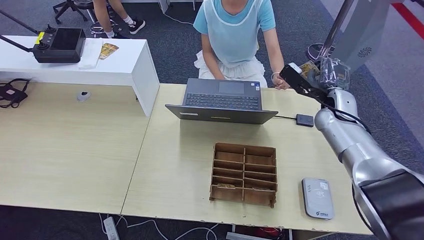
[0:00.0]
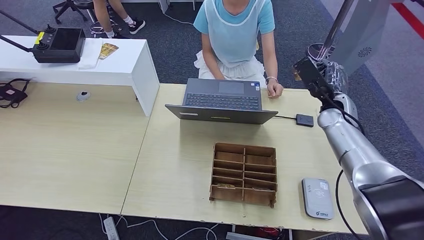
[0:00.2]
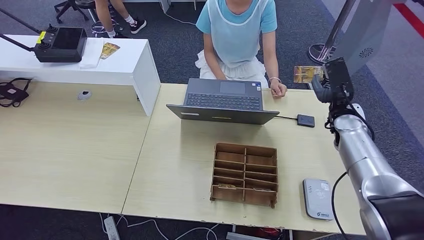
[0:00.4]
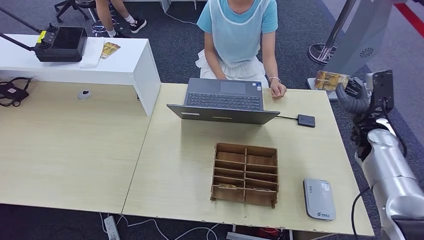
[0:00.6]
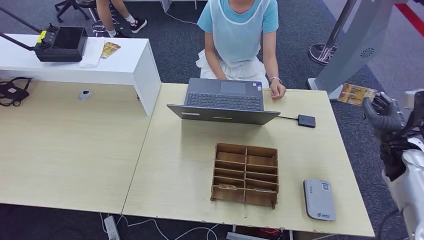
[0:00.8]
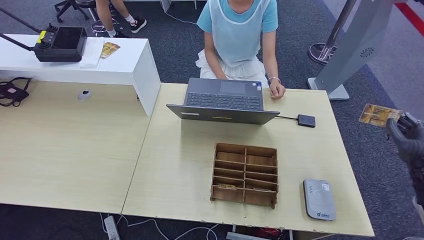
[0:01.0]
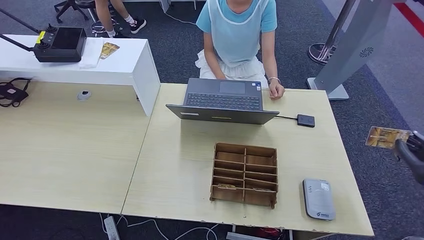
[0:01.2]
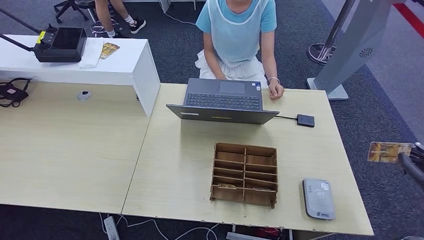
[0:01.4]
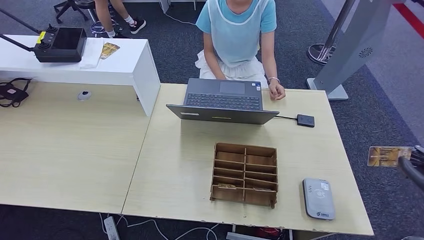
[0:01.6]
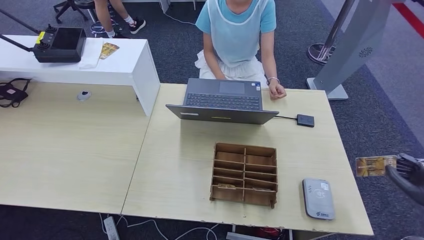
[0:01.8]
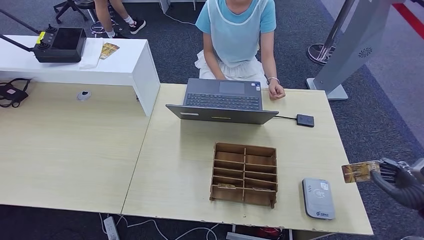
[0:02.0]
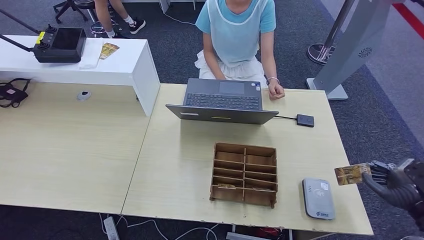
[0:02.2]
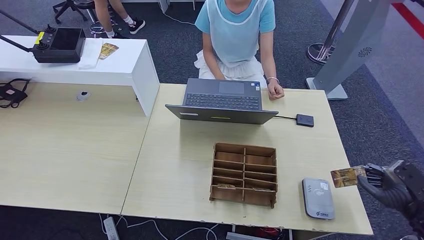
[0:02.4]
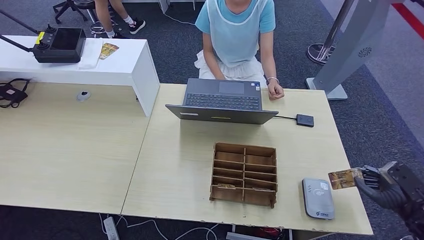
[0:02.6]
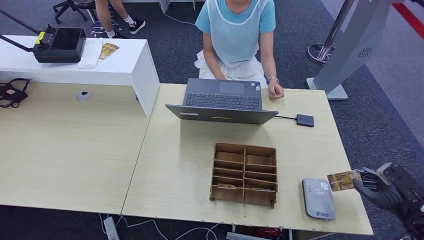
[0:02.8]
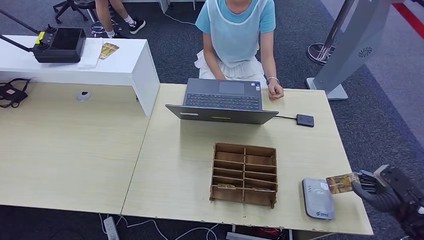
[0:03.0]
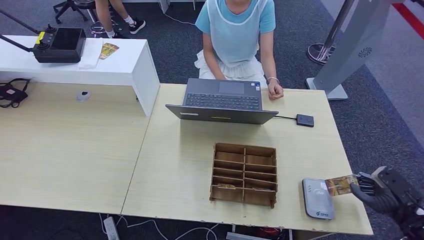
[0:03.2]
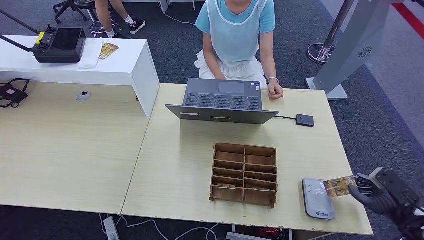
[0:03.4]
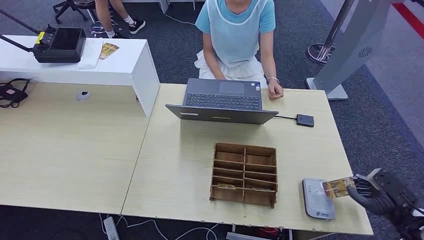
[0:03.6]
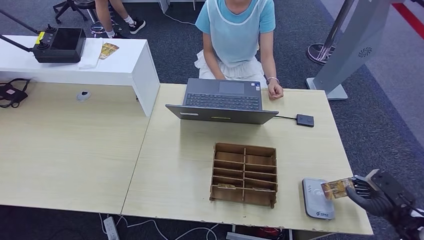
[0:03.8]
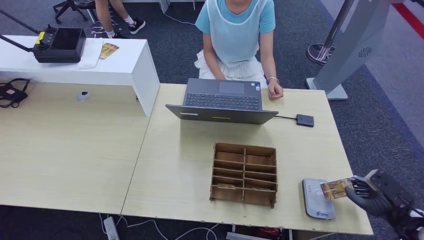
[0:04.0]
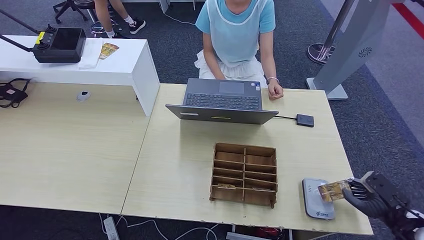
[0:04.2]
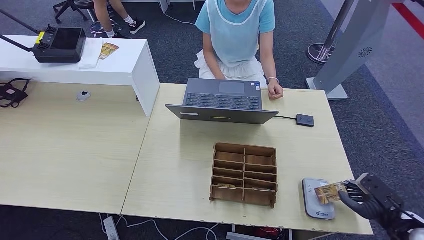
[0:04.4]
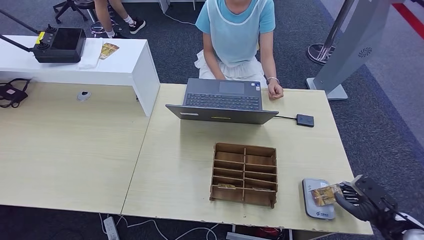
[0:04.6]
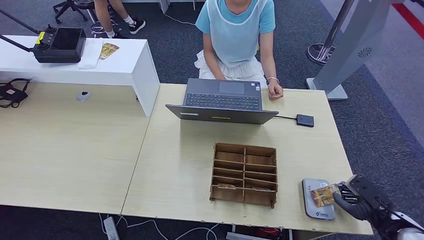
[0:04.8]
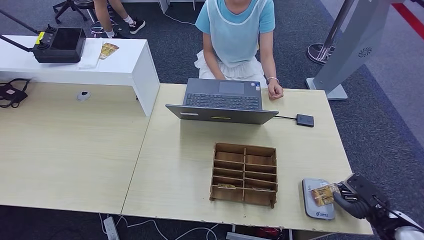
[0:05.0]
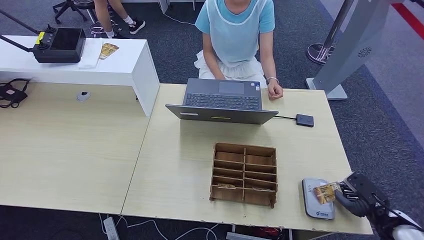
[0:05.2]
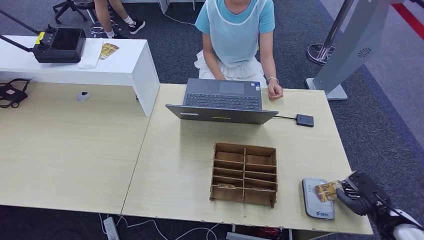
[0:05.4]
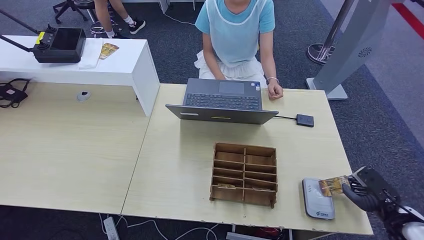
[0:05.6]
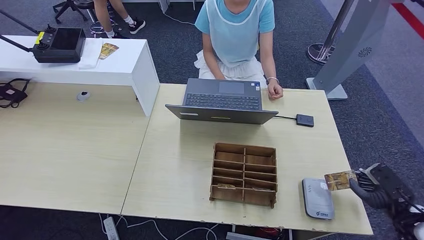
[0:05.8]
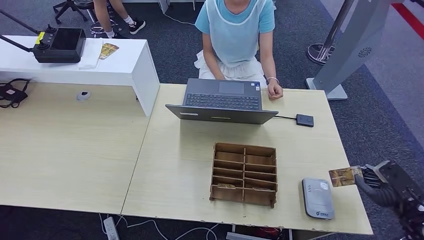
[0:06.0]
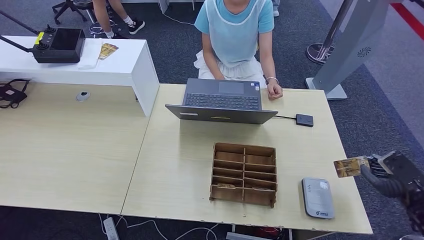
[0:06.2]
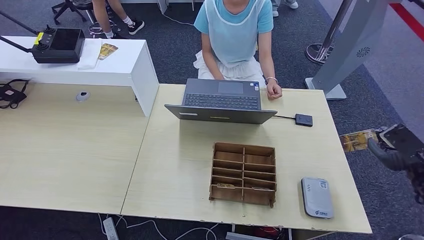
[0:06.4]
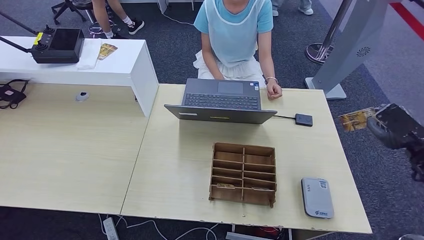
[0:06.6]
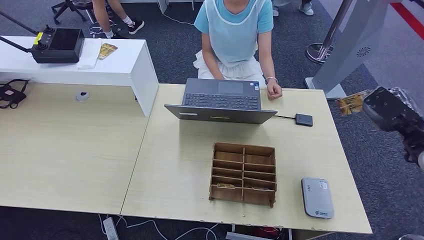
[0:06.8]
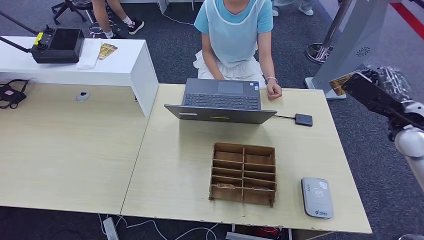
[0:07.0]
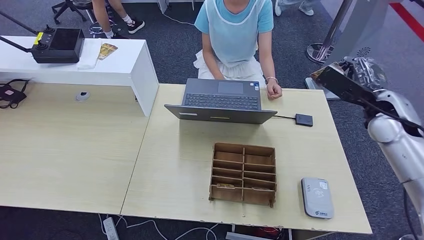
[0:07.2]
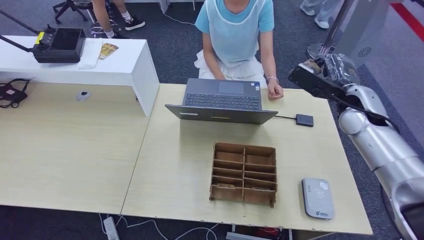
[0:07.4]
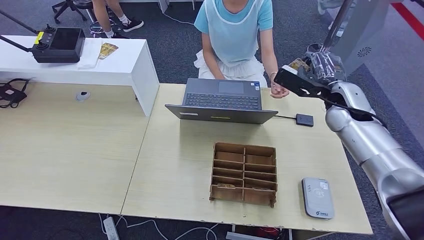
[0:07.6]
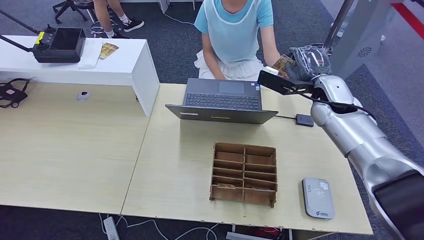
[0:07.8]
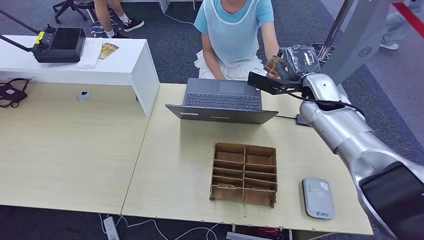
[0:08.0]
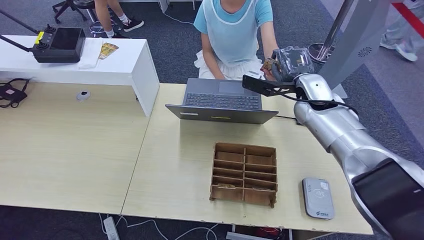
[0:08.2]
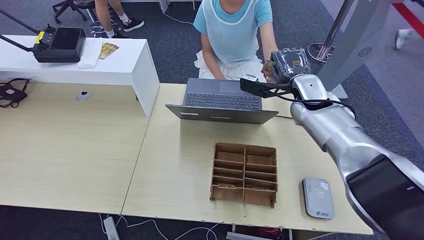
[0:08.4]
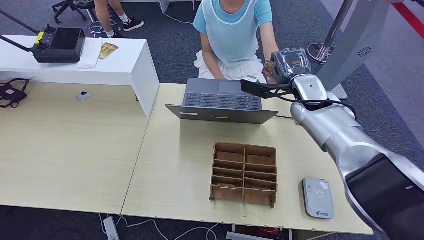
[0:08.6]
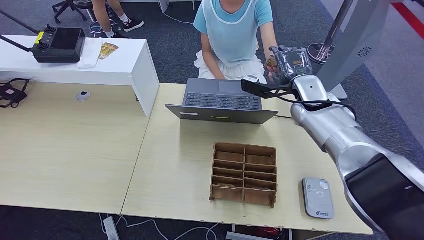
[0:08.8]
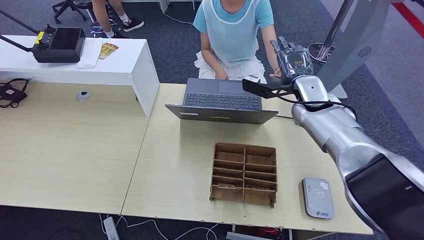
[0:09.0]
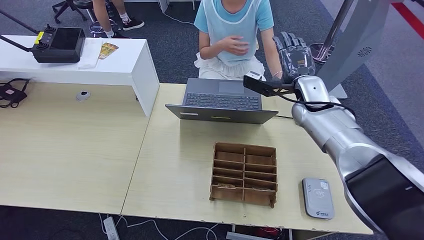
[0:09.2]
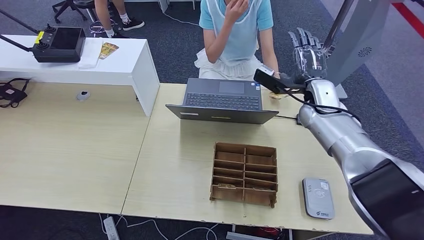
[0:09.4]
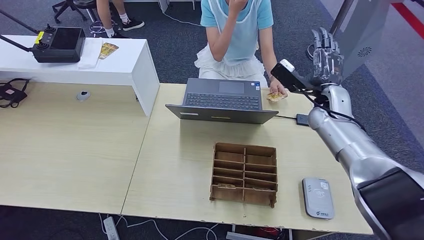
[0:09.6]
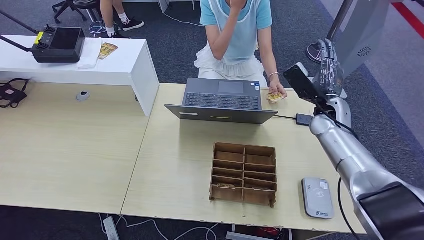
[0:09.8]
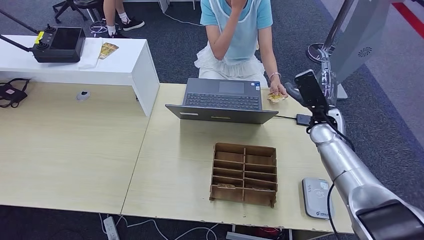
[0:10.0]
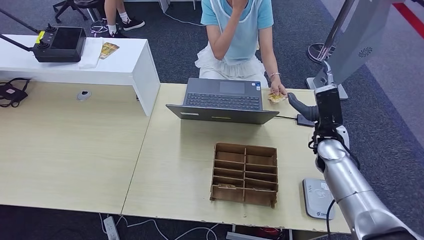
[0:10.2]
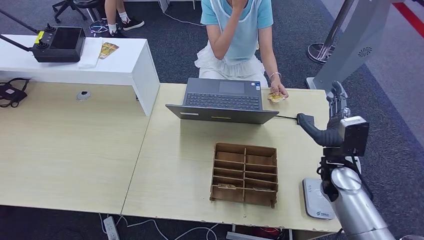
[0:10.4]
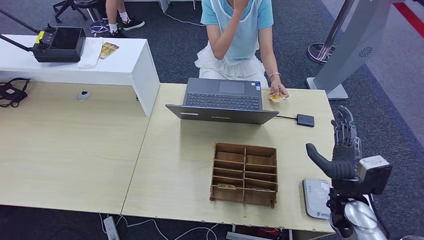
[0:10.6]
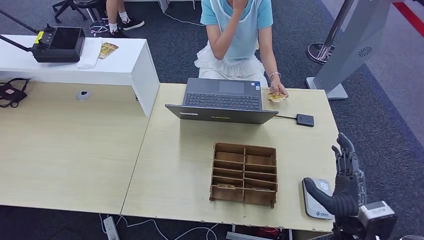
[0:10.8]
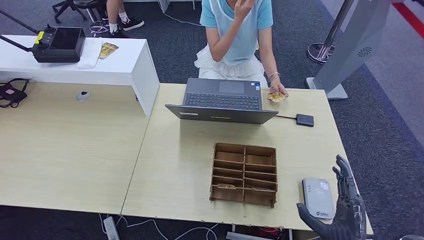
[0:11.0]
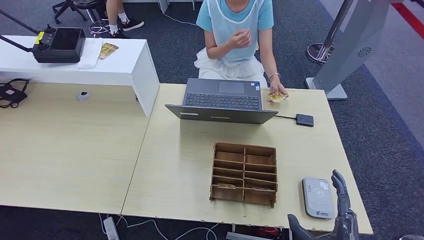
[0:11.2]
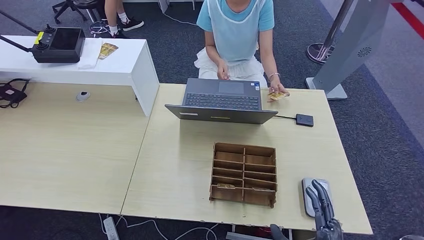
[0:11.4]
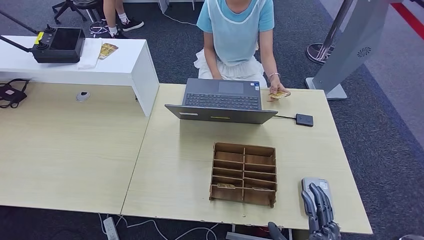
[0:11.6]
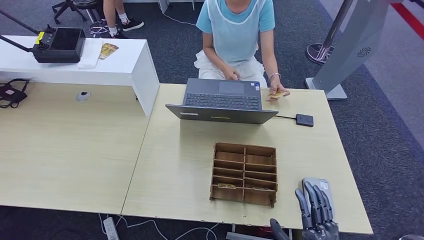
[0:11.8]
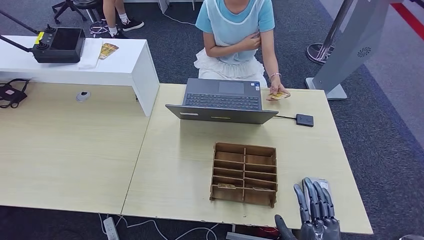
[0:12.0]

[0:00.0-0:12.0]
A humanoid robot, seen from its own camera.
Step, 0:01.0 to 0:06.4: Place the ID card on the card reader.
Step, 0:06.6 to 0:09.8: Hand the ID card to the person.
0:00.0 to 0:01.6: The right hand moves backward and to the right, about 35 cm.
0:01.6 to 0:03.0: The right hand shifts roughly 5 cm downward.
0:03.0 to 0:06.0: The hands stay close to where they were, moving slightly.
0:06.0 to 0:07.6: The right hand goes roughly 35 cm forward, to the left and upward.
0:07.6 to 0:09.0: The right hand heads to the left, covering roughly 10 cm.
0:09.0 to 0:10.4: The right hand travels backward, downward and to the right by some 20 cm.
0:10.4 to 0:12.0: The right hand moves backward, roughly 25 cm.

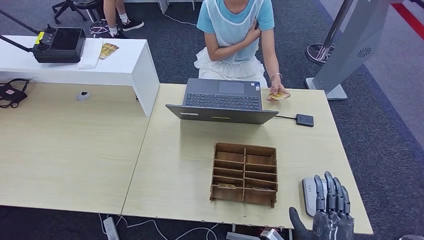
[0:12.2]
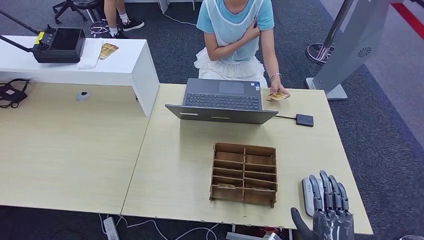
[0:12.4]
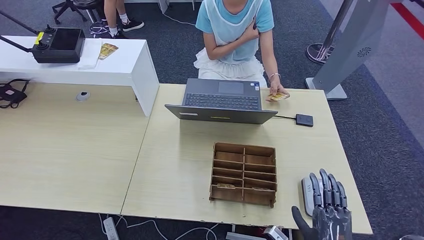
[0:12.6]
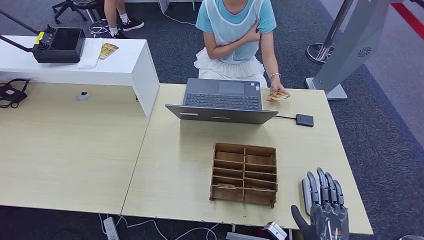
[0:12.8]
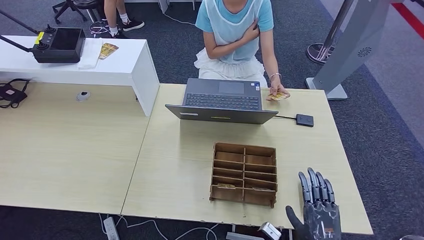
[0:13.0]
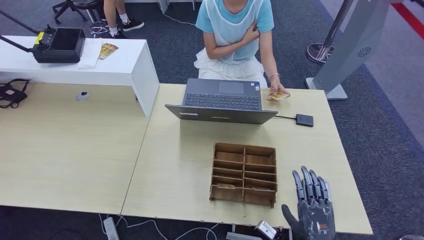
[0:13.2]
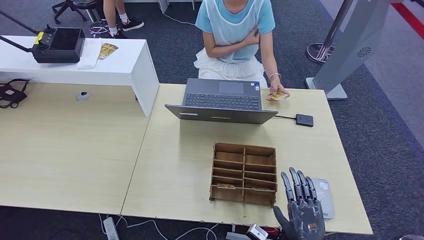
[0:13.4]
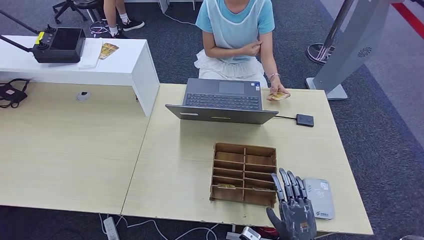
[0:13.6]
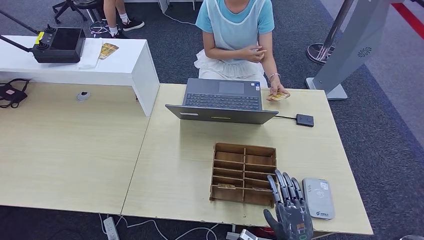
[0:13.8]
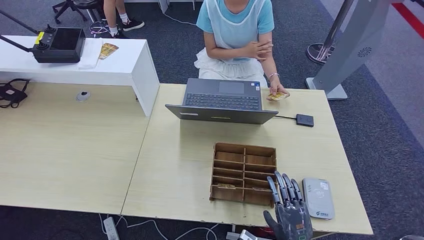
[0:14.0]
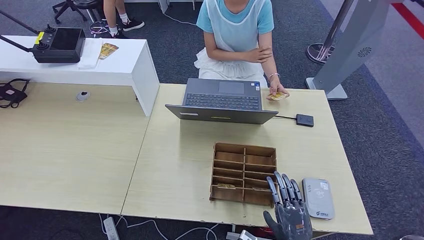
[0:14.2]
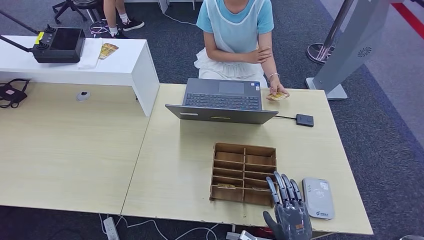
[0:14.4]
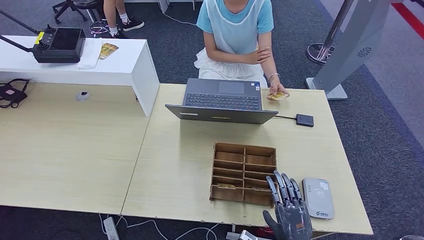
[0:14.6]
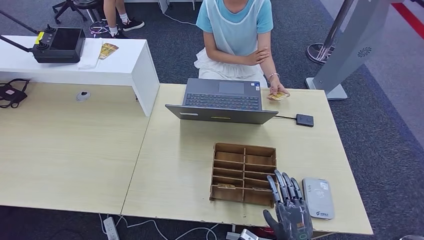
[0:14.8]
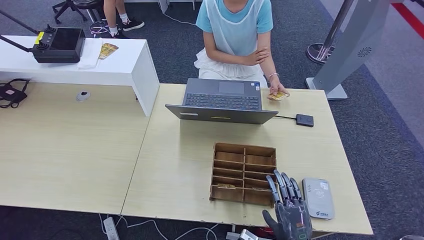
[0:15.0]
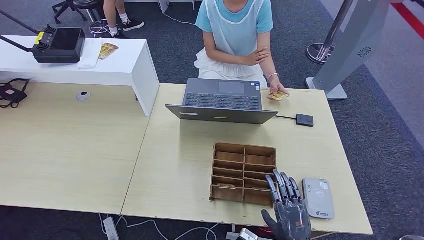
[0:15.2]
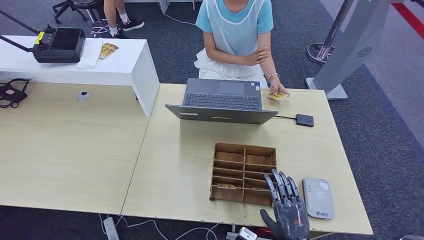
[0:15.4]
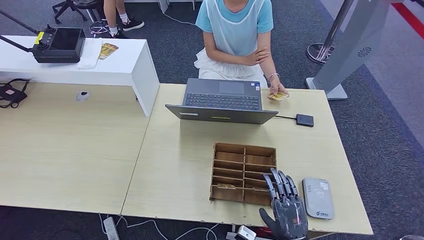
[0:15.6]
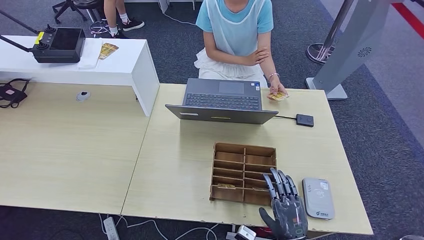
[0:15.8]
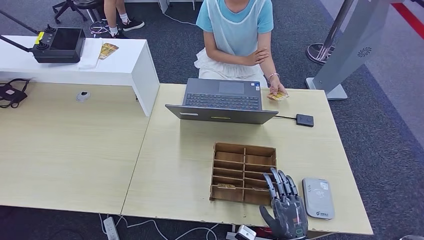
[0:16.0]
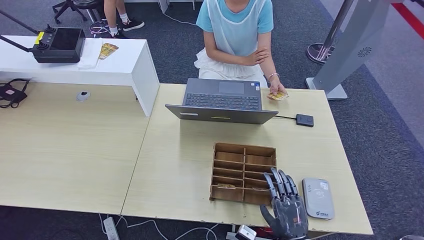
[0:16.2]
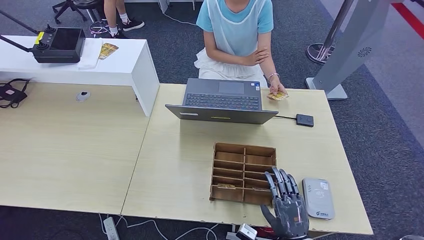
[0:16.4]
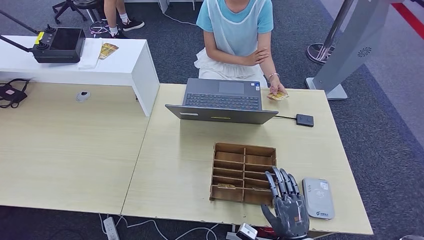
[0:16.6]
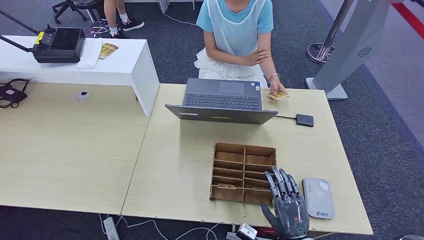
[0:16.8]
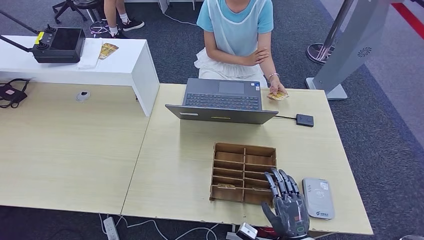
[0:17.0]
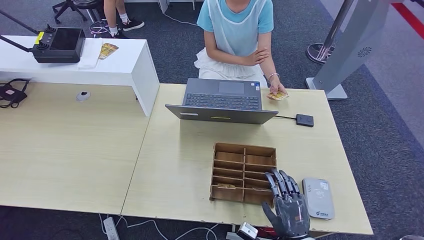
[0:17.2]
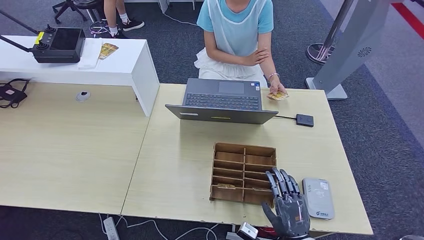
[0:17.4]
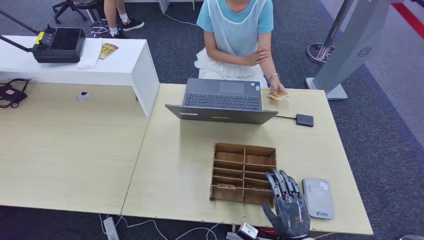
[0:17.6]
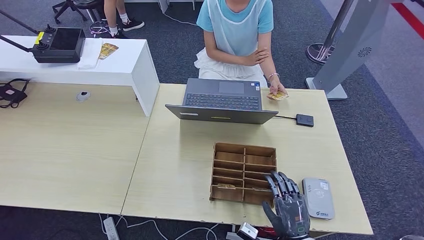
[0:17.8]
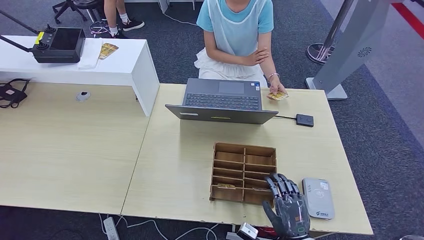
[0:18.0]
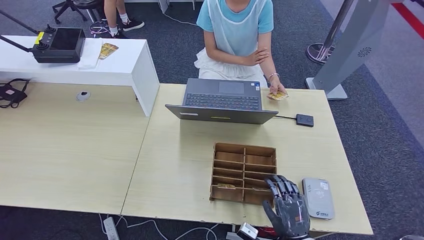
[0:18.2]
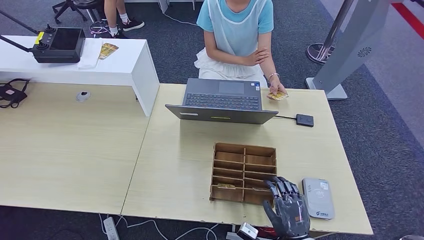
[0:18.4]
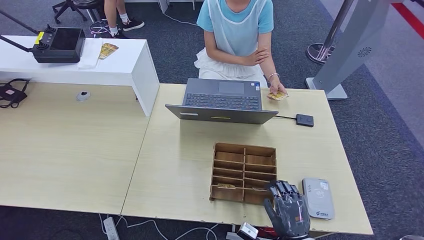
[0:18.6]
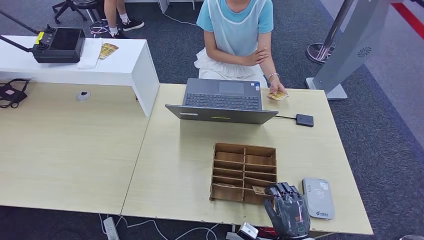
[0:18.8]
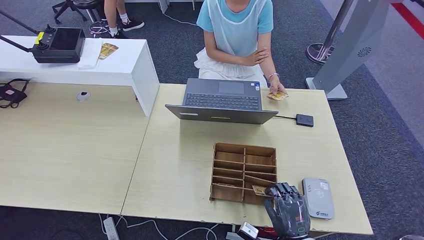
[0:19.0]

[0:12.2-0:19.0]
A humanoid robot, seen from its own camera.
0:12.2 to 0:13.6: The right hand heads downward, covering about 5 cm.
0:13.6 to 0:15.0: Neither hand changes place.
0:15.0 to 0:16.2: Neither hand changes place.
0:16.2 to 0:19.0: Both hands stay put.
